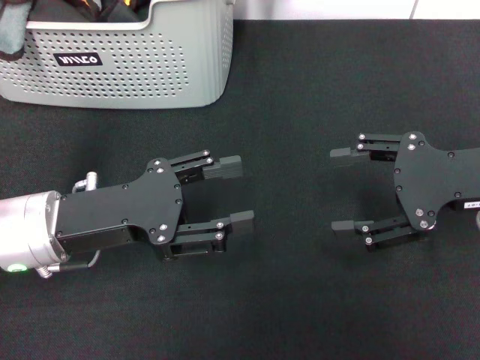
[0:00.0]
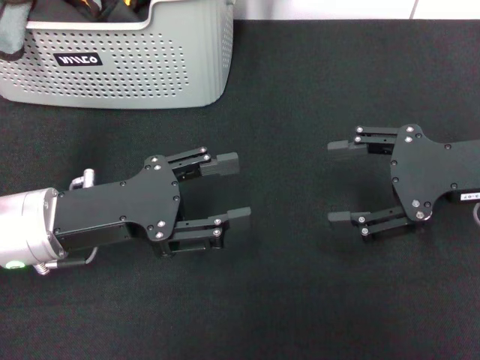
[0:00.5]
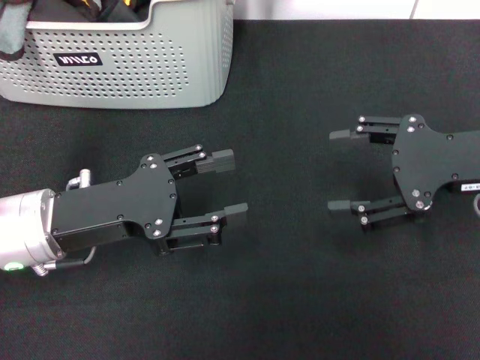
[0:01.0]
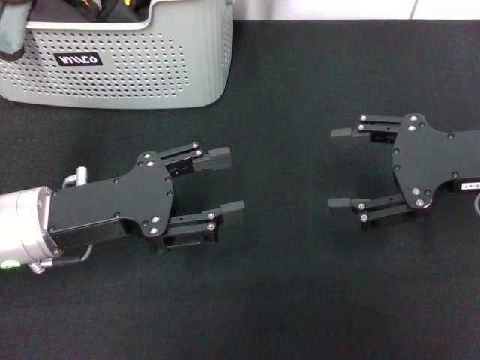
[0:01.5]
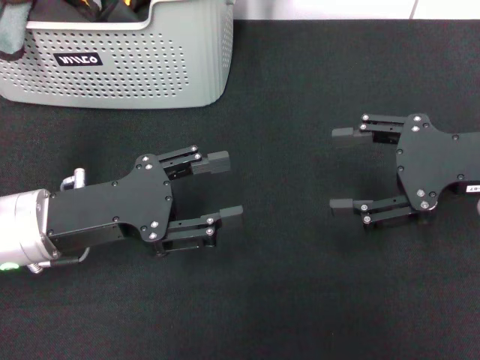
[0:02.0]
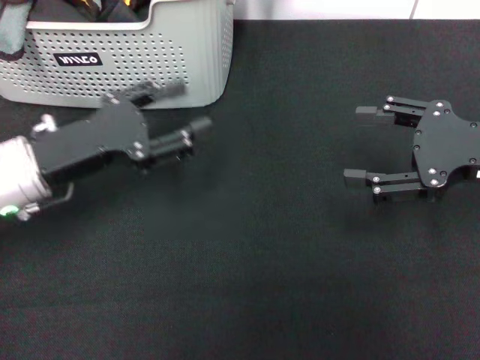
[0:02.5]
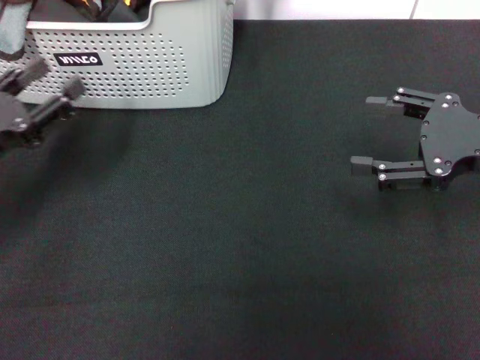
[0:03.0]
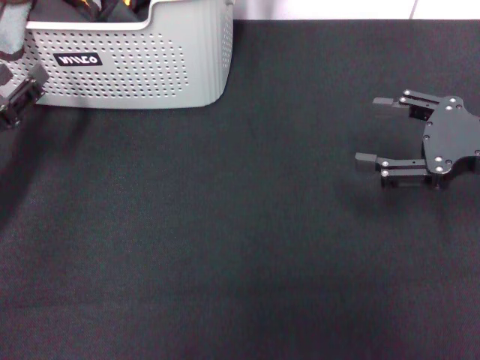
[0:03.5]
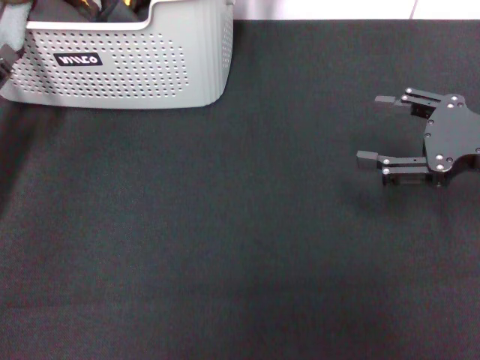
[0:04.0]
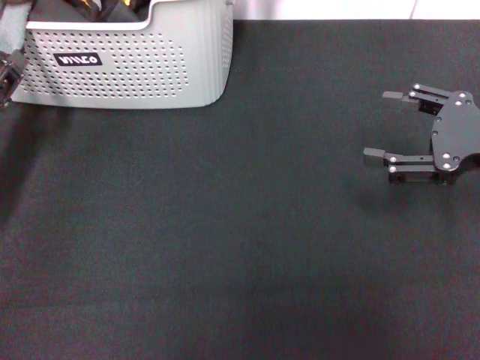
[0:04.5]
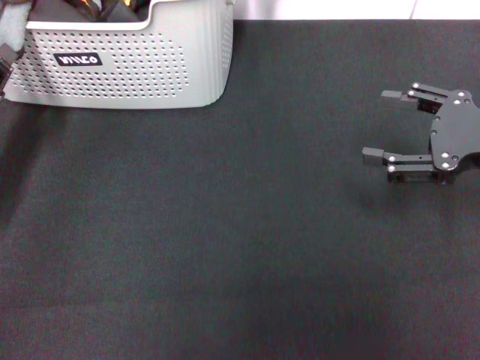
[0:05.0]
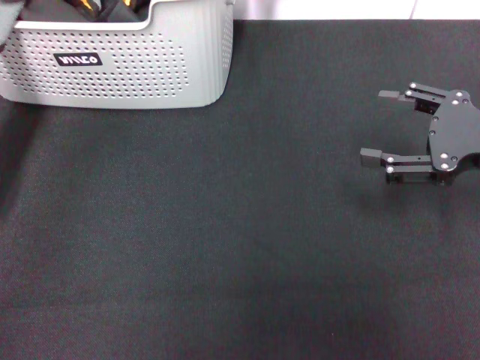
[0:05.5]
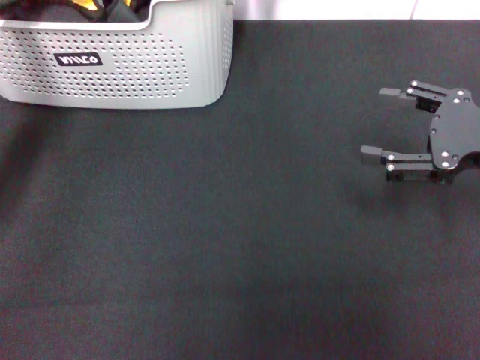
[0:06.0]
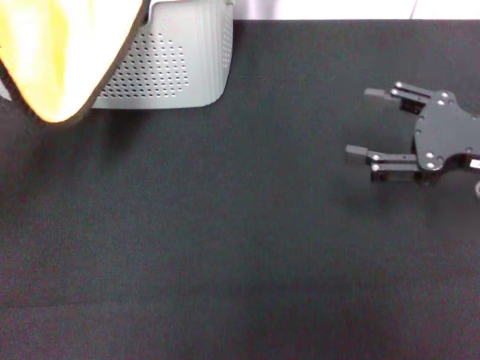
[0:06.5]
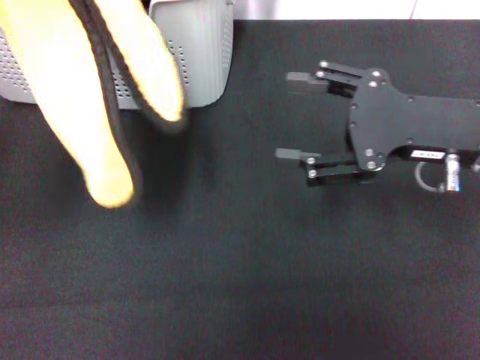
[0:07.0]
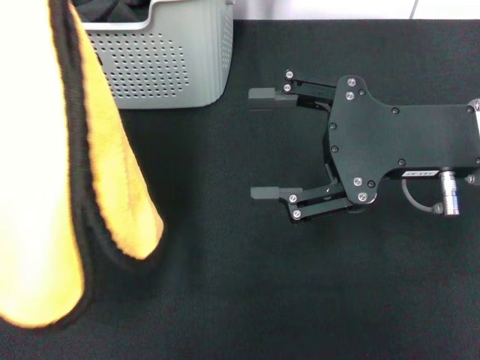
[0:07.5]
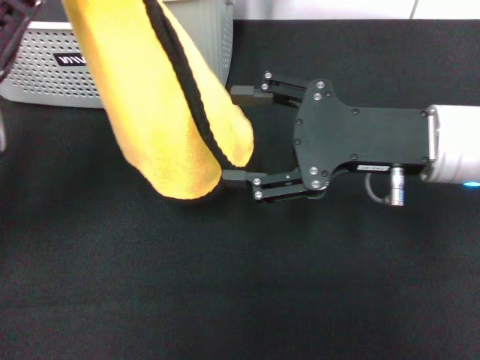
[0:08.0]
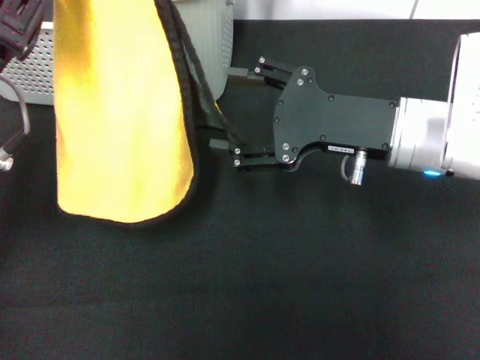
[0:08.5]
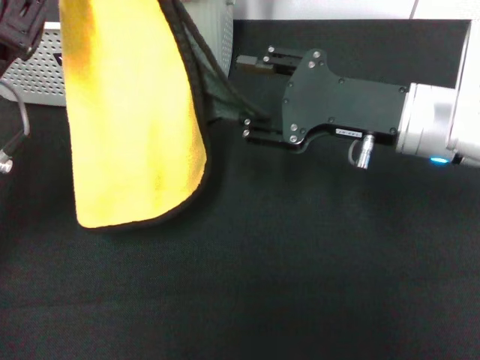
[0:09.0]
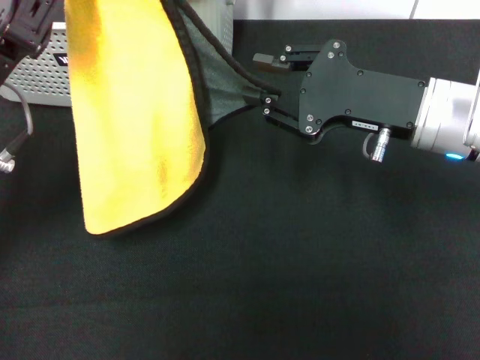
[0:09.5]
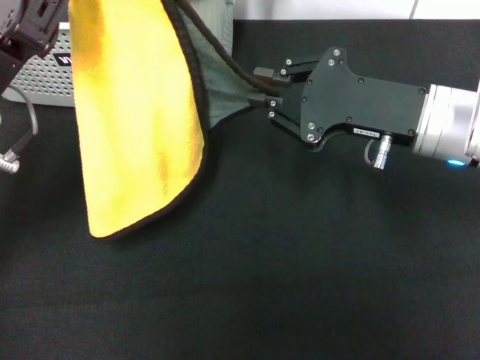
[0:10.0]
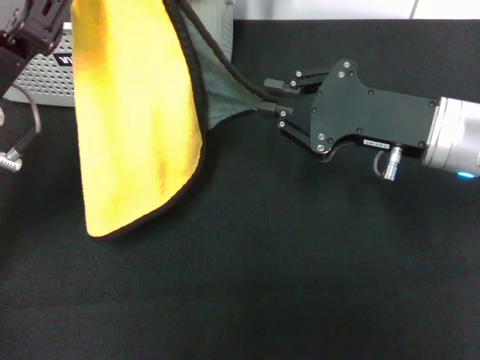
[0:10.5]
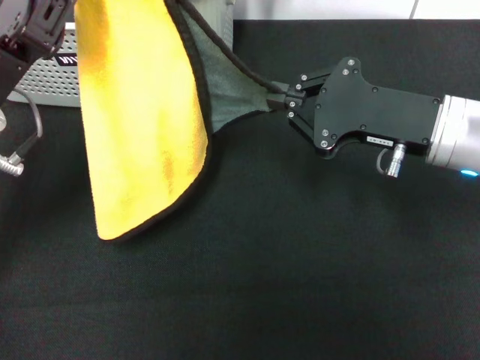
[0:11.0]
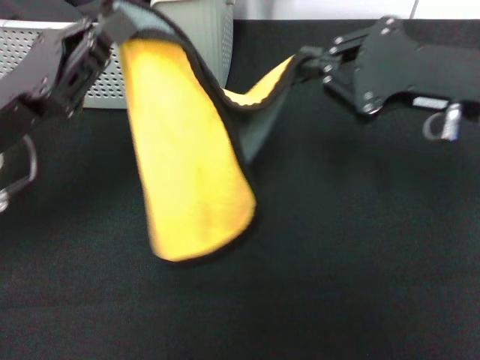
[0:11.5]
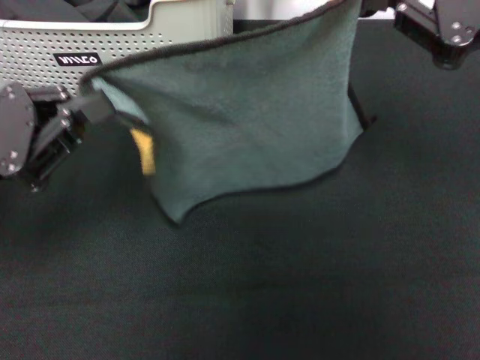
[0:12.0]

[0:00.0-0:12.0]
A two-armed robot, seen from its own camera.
Task of the whole recording: pick up the towel from the storage box and lay it flat on the black tablecloth.
Step, 0:00.0 to 0:05.0: Pick up a towel with the left gripper.
Step, 0:05.5 to 0:11.0: Spread the towel flat with the left gripper.
0:00.0 to 0:02.0: Both grippers stay about where they are.
0:02.0 to 0:04.0: The left gripper moves to the left, some 10 cm.
0:04.0 to 0:06.0: The left gripper closes up.
0:06.0 to 0:08.0: The left gripper is displaced to the right and upward by some 10 cm, while the right gripper is displaced to the left by roughly 10 cm.
0:08.0 to 0:10.0: The right gripper closes.
0:10.0 to 0:12.0: The left gripper ends up about 5 cm from where it was; the right gripper travels upward and to the right by roughly 15 cm.

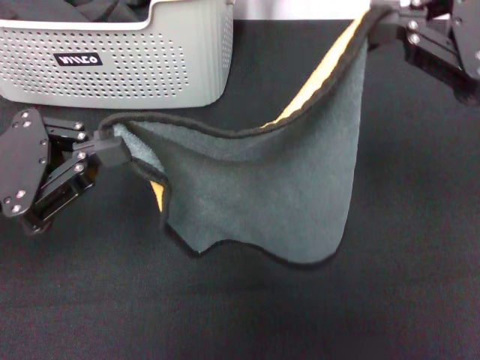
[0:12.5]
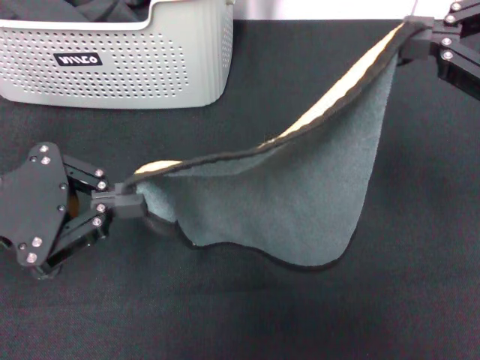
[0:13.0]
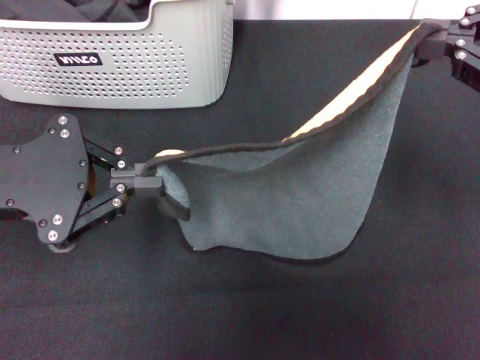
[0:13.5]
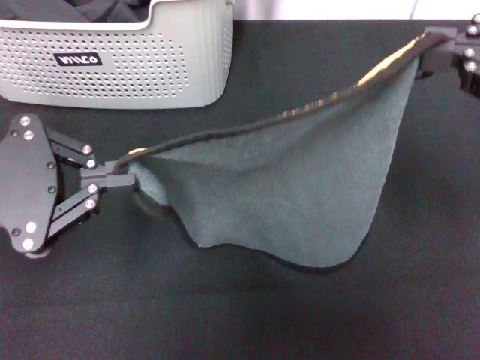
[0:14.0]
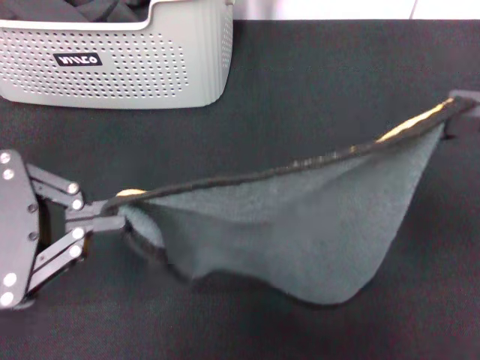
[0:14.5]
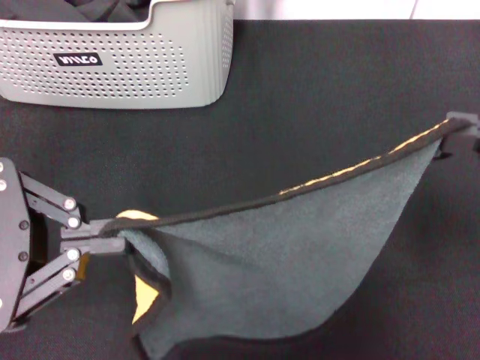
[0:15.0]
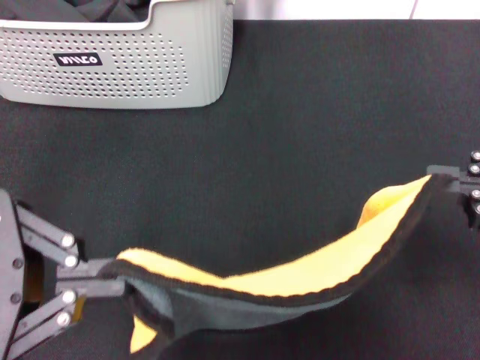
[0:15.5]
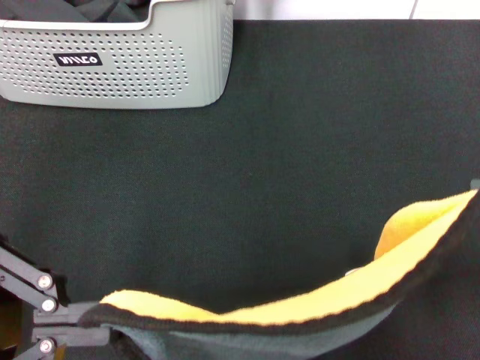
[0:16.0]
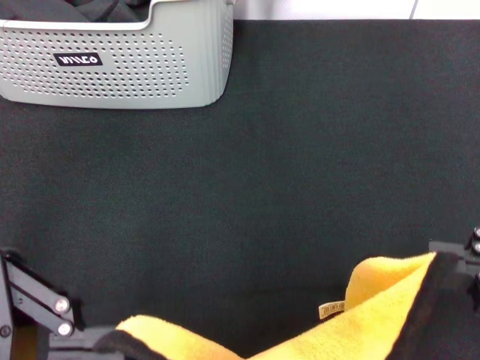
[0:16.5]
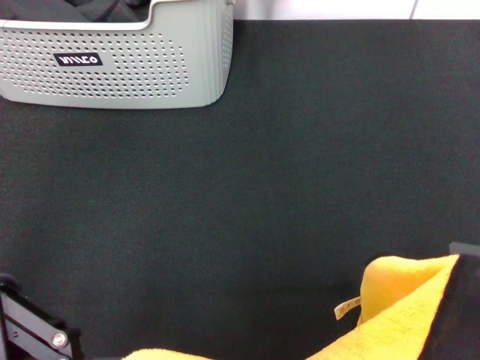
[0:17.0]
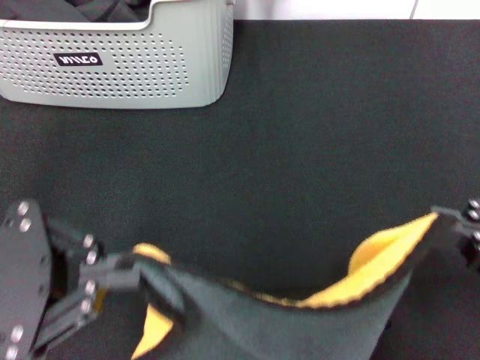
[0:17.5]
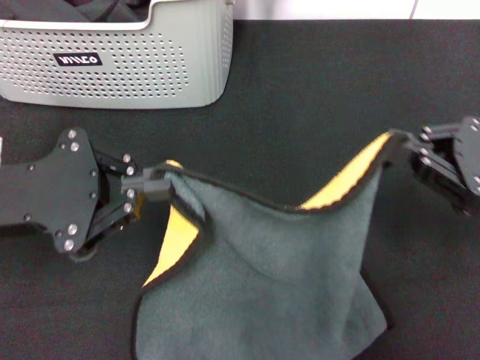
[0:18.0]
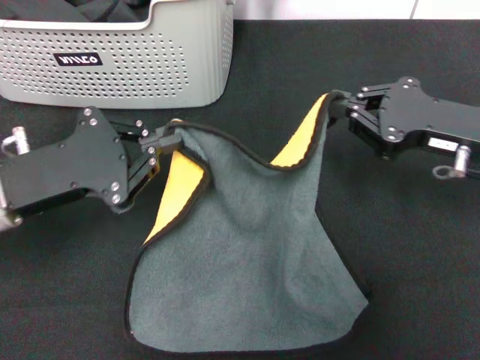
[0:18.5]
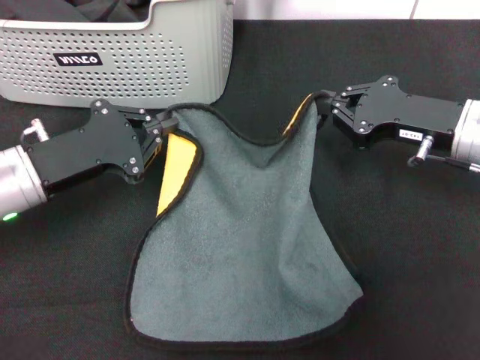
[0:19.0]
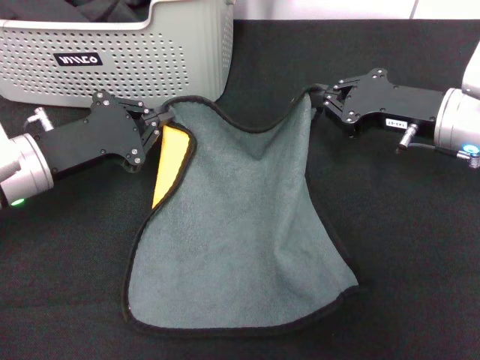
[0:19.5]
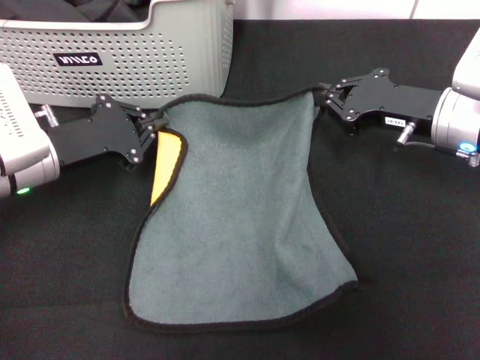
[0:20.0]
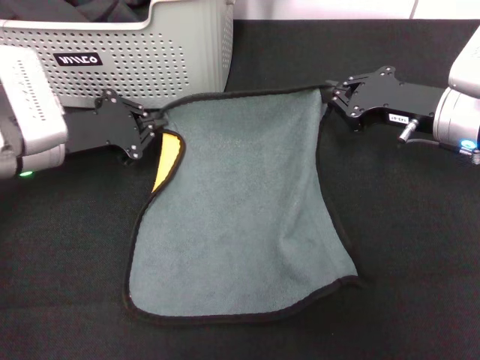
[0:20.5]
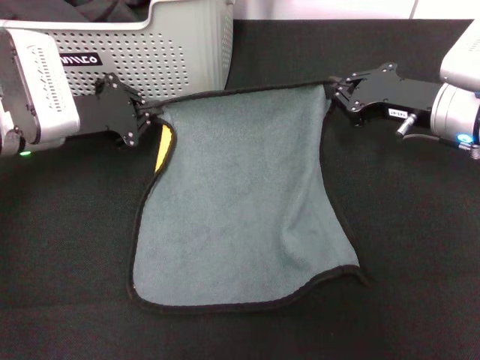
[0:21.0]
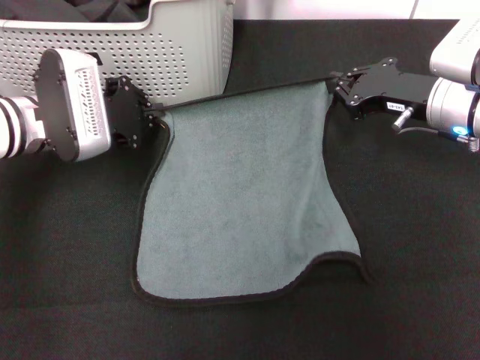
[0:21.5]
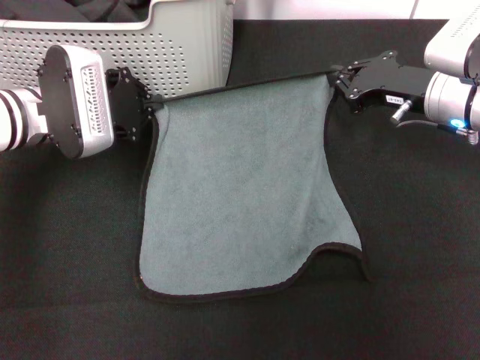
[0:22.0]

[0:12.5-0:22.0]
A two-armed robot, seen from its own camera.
Task of the whole recording: pick up the towel from the storage box and lay it flat on the black tablecloth.
0:12.5 to 0:14.5: The right gripper heads backward, covering roughly 5 cm. Meanwhile the left gripper moves roughly 5 cm.
0:14.5 to 0:16.5: The left gripper shifts by about 5 cm, while the right gripper goes some 10 cm downward and backward.
0:16.5 to 0:18.0: The two grippers go roughly 10 cm forward and downward.
0:18.0 to 0:20.0: The left gripper goes approximately 10 cm forward and downward. The right gripper moves forward and to the left, approximately 15 cm.
0:20.0 to 0:22.0: The left gripper heads forward, covering about 5 cm.

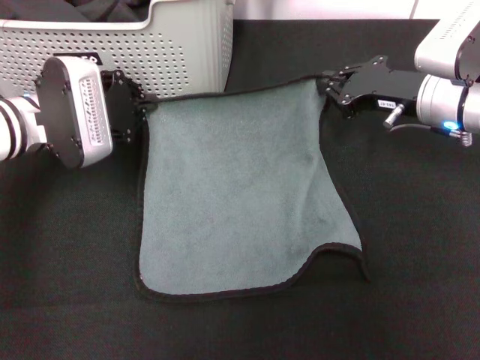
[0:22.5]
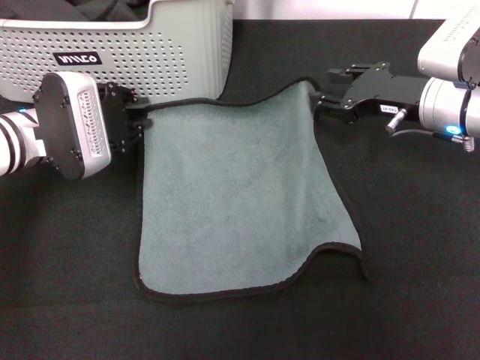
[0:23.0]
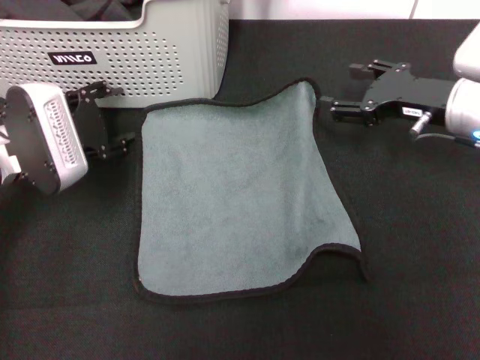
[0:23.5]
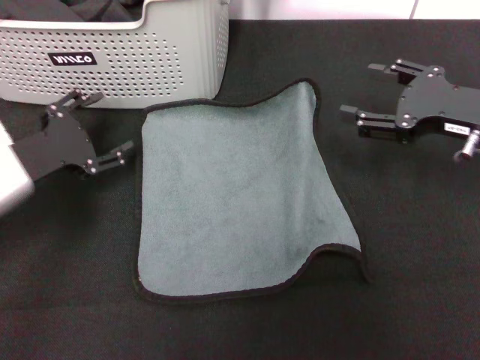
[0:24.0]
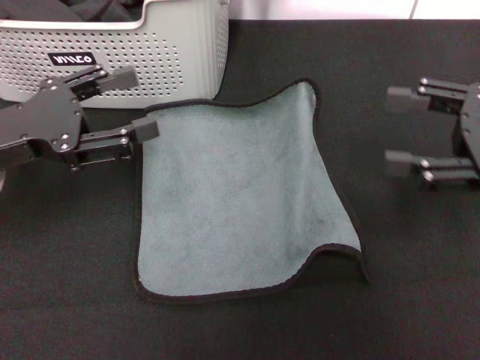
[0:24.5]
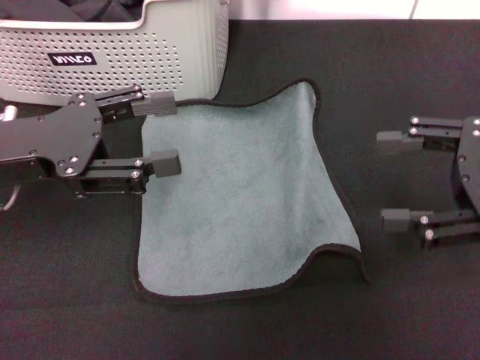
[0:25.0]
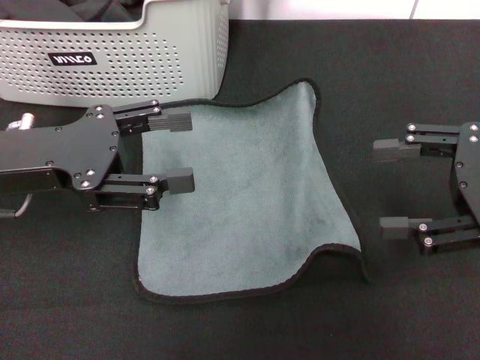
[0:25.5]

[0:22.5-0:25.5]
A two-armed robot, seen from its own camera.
Task of the whole recording: pick up the towel from the storage box and lay it flat on the black tablecloth.
0:22.5 to 0:24.0: The right gripper is displaced backward and to the right by about 10 cm, and opens its fingers. The left gripper moves backward, roughly 10 cm, and opens up.
0:24.0 to 0:25.5: The right gripper goes some 10 cm backward and upward; the left gripper heads upward, covering about 10 cm.
